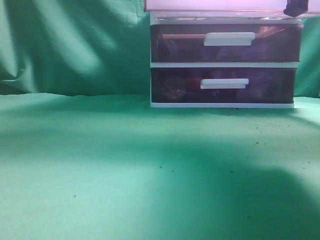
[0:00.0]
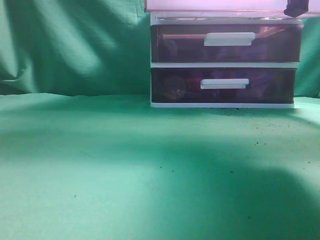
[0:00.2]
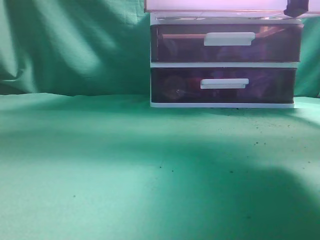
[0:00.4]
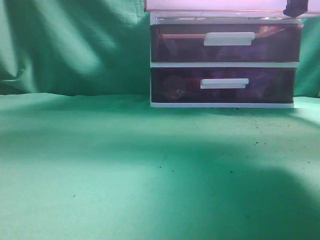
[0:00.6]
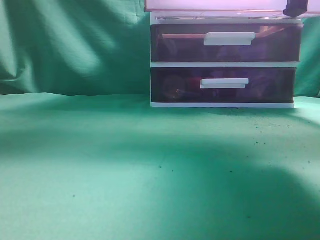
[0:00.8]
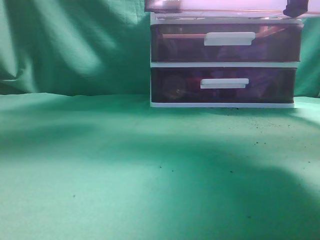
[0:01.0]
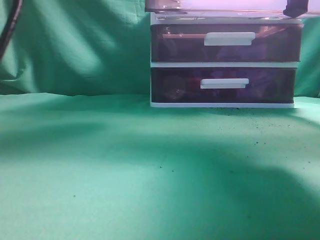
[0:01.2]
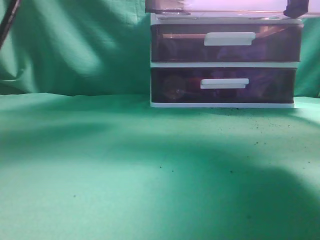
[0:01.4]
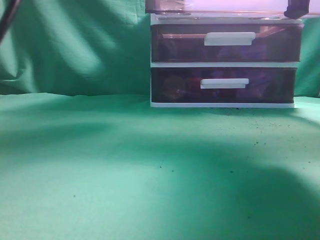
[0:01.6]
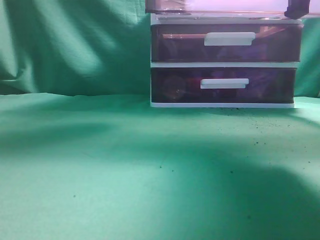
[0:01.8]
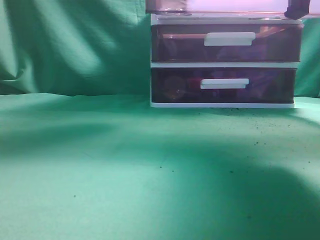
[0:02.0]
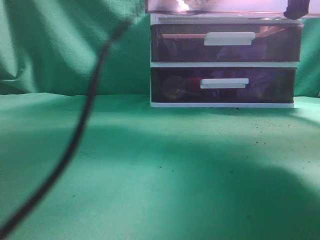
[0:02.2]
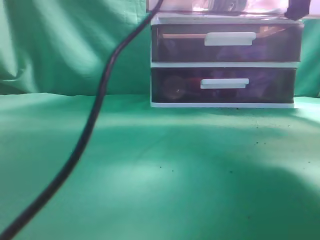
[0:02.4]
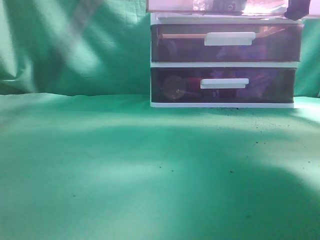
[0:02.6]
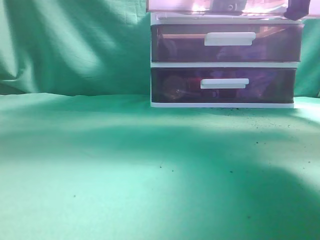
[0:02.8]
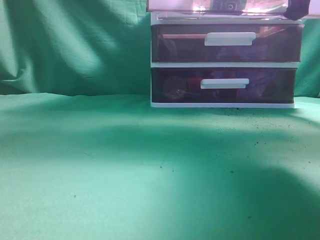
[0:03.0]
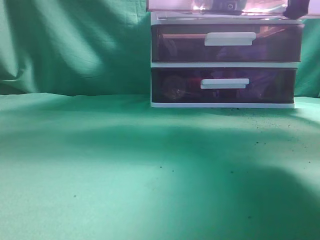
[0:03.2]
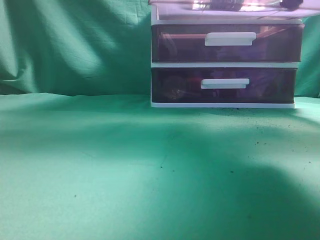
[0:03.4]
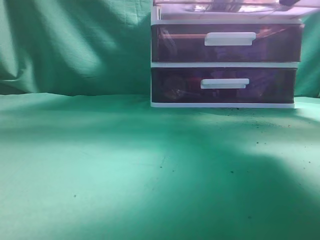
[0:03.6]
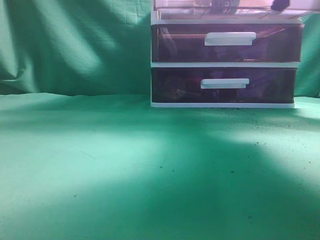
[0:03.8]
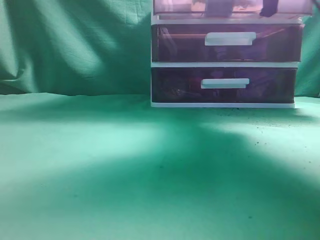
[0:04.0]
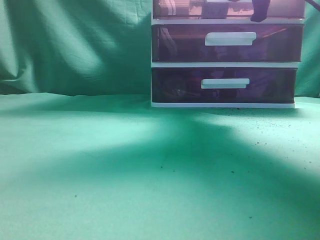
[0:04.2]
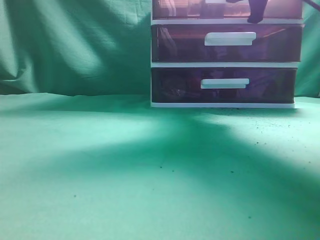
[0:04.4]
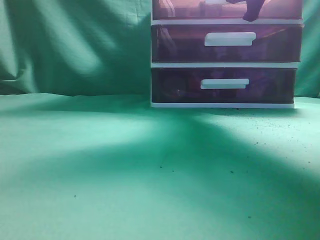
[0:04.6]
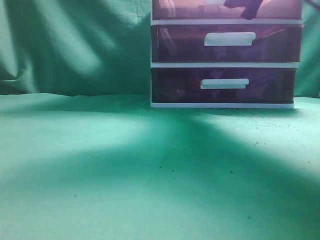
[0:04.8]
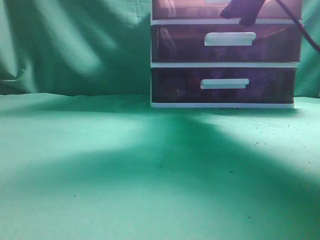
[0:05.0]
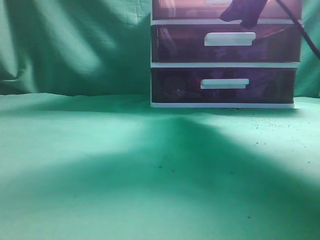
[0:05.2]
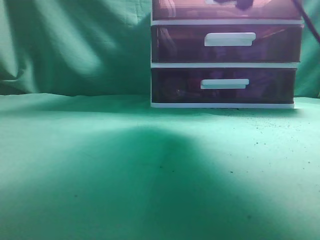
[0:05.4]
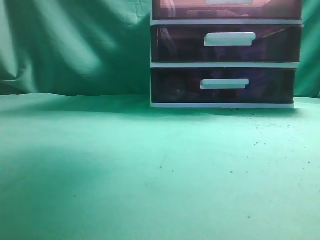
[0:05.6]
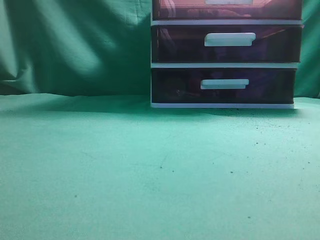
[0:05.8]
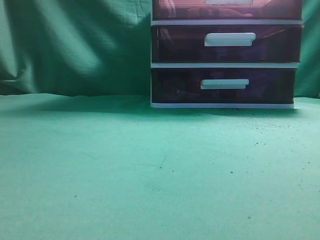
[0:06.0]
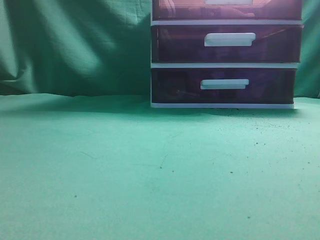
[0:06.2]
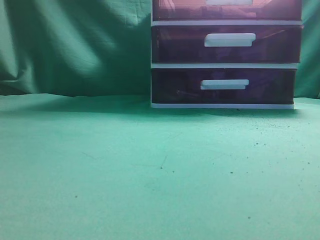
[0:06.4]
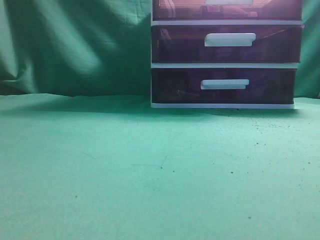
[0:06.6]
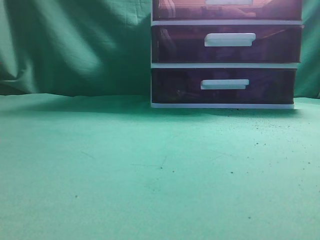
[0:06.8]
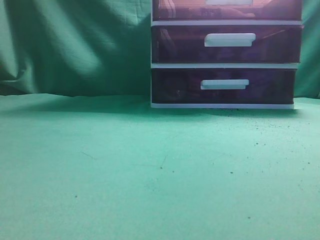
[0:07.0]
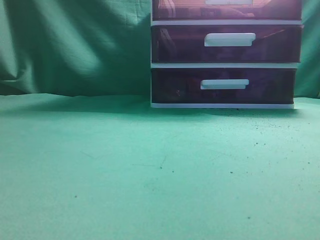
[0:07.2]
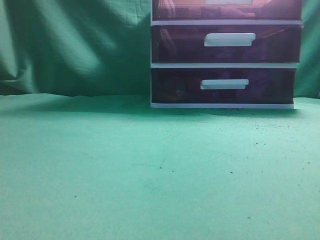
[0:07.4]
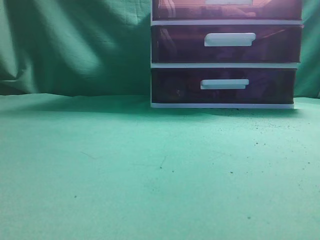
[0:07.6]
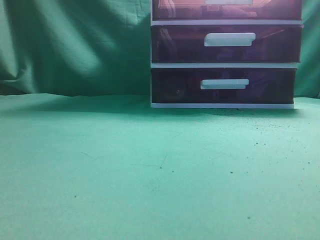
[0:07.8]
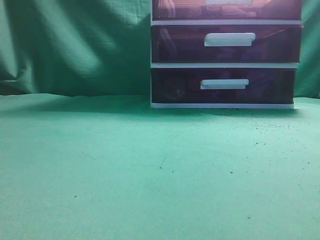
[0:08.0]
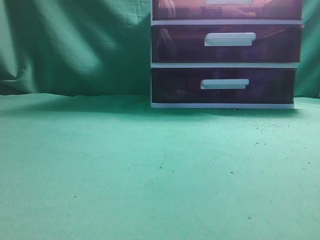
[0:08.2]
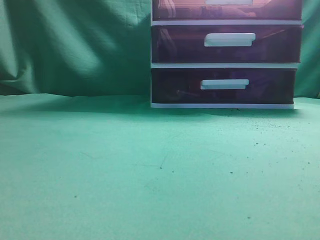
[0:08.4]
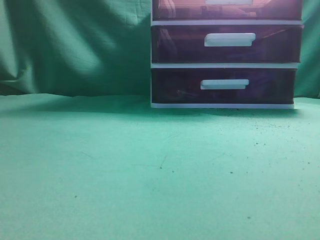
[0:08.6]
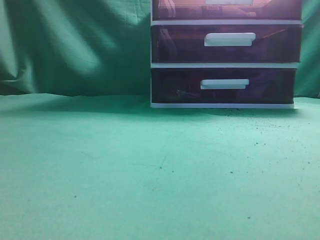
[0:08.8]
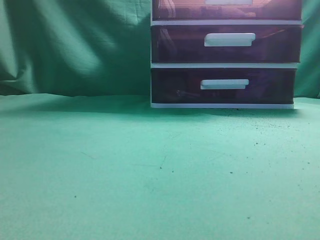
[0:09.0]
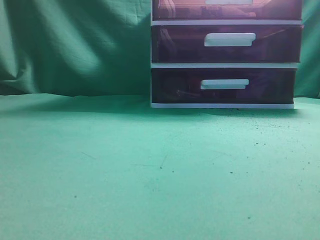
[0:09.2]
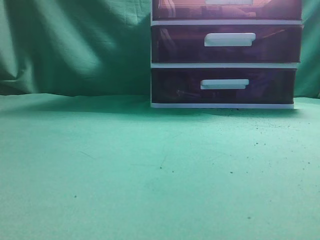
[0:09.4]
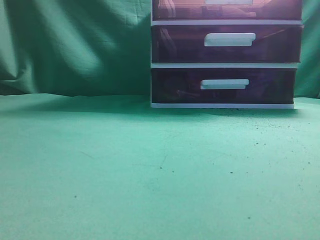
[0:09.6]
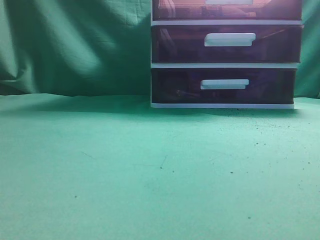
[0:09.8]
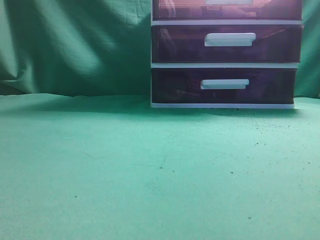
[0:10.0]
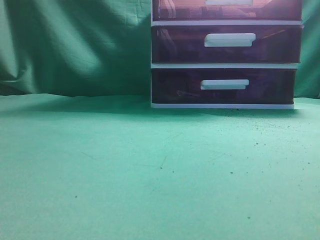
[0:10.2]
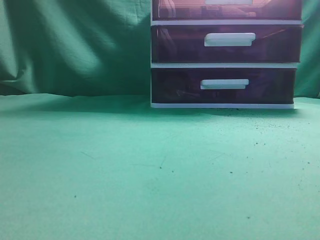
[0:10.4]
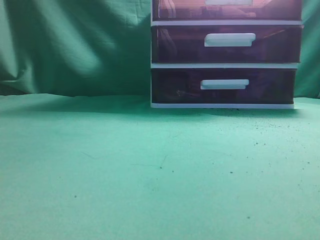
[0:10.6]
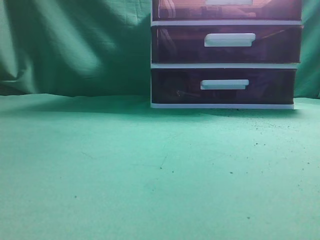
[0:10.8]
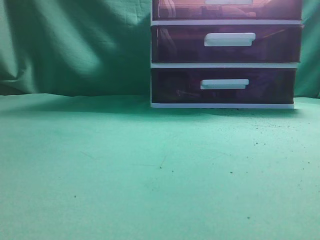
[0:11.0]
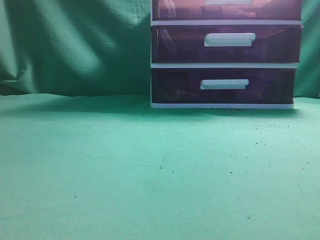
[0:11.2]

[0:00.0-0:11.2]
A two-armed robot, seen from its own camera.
Task of the whole recording: place the water bottle into the drawer.
Step, 0:00.0 to 0:02.8: Place the water bottle inside the drawer.
Step, 0:03.0 to 0:05.4: Close the drawer.
0:00.0 to 0:01.6: The left gripper is displaced forward and to the right by approximately 25 cm, and opens up.
0:01.6 to 0:03.2: The left gripper shifts approximately 10 cm upward, and closes.
0:03.2 to 0:04.8: The left gripper moves backward, to the left and downward, approximately 20 cm; the right gripper heads forward, covering some 15 cm, and opens up.
0:04.8 to 0:06.4: The right gripper moves backward and upward, about 30 cm, and closes. Meanwhile the left gripper heads backward and to the left, covering some 20 cm.
